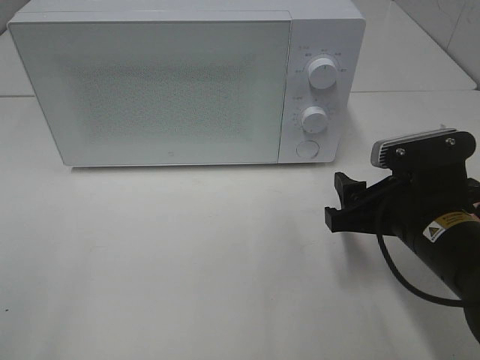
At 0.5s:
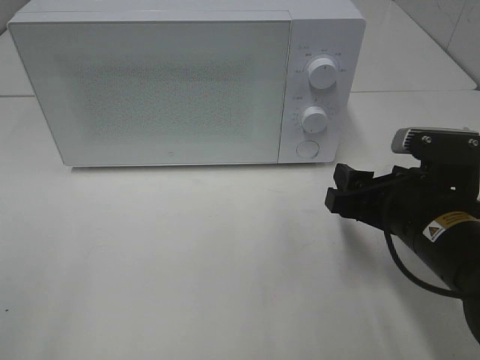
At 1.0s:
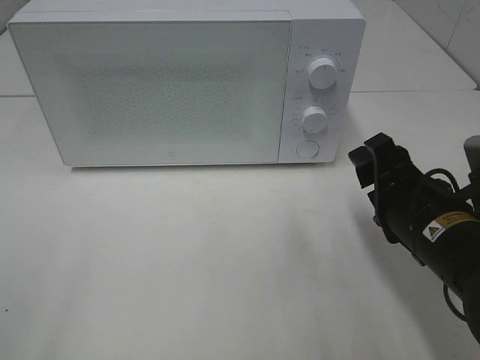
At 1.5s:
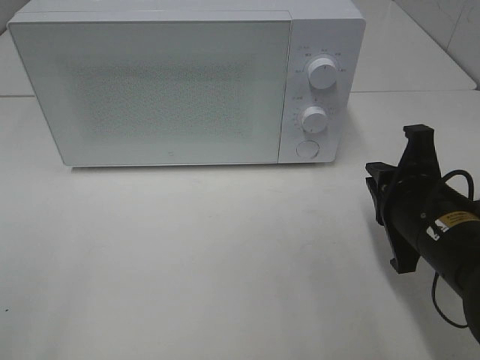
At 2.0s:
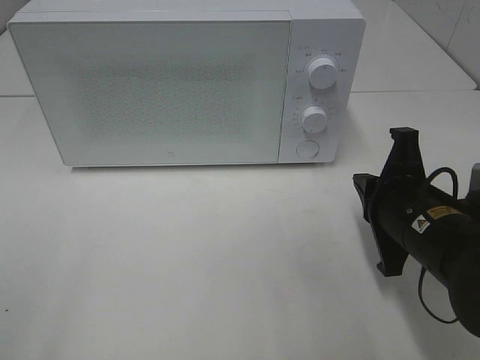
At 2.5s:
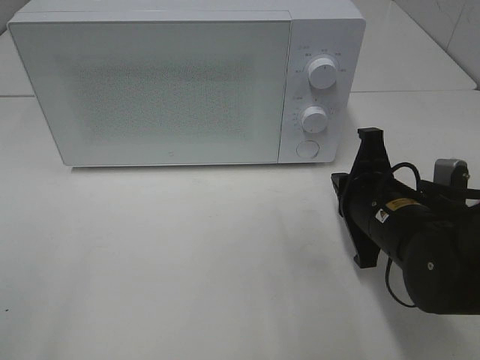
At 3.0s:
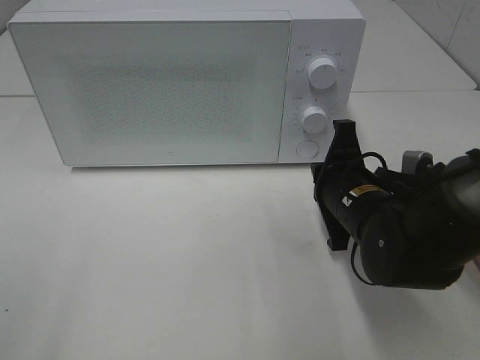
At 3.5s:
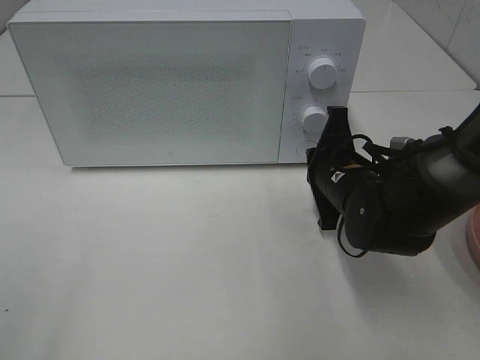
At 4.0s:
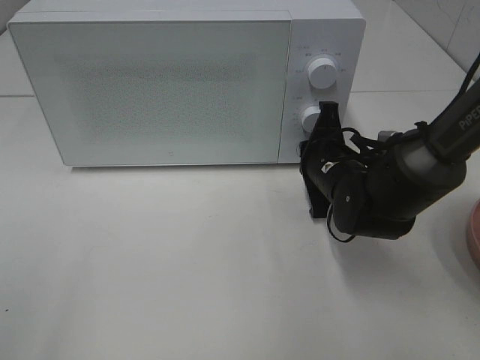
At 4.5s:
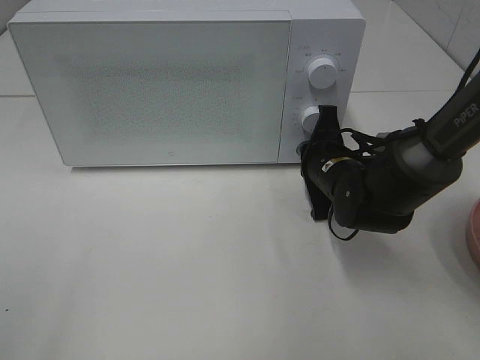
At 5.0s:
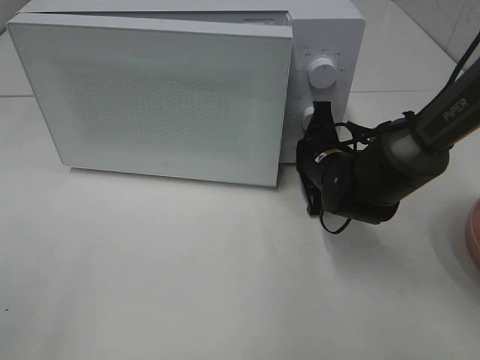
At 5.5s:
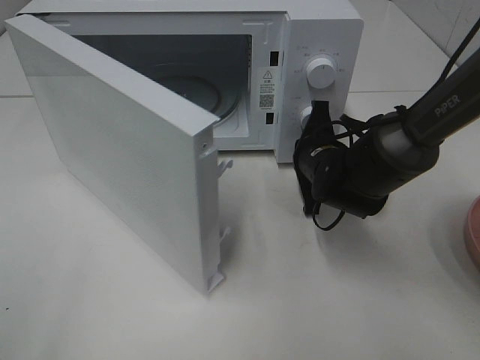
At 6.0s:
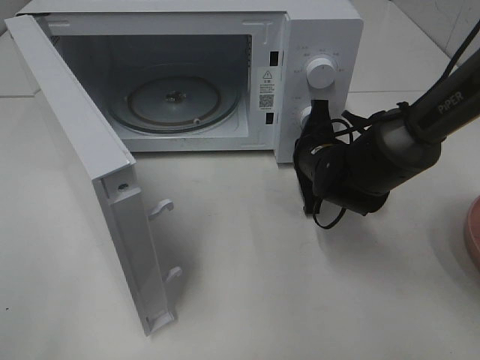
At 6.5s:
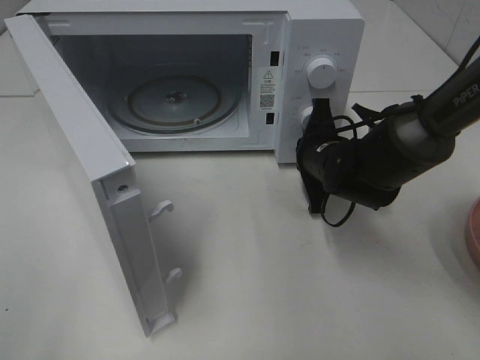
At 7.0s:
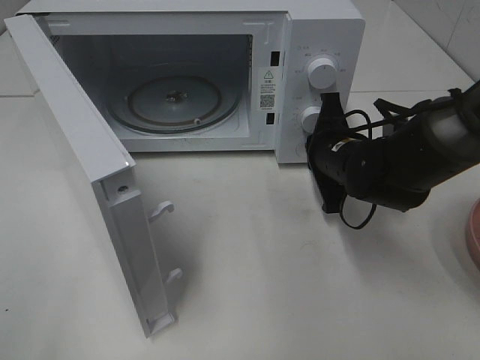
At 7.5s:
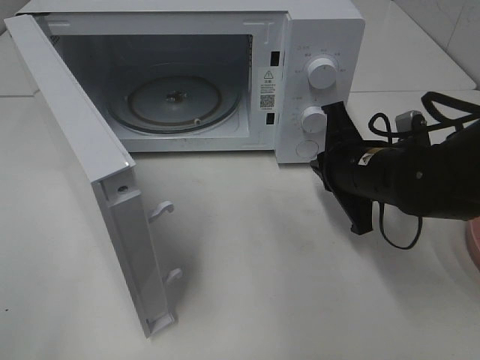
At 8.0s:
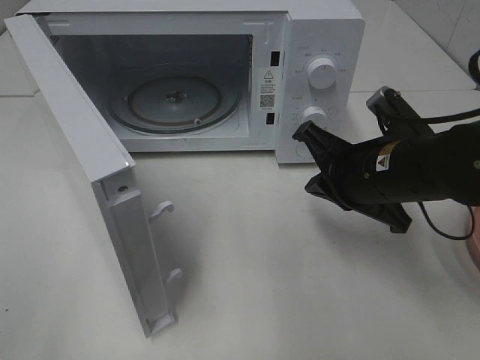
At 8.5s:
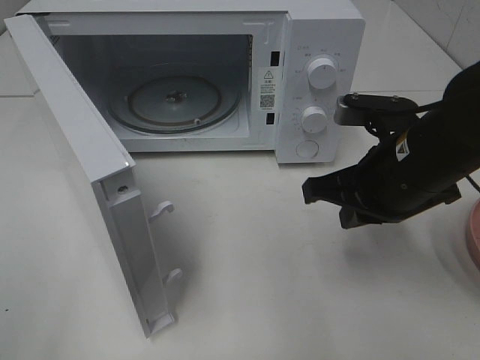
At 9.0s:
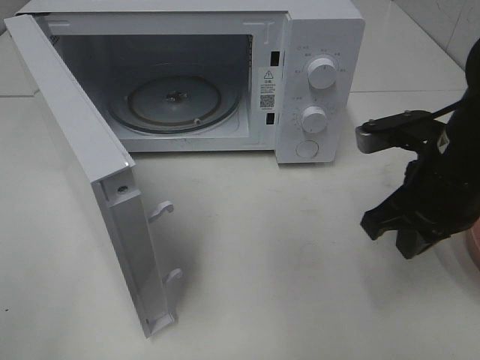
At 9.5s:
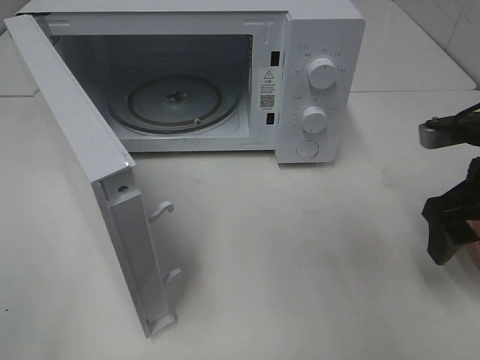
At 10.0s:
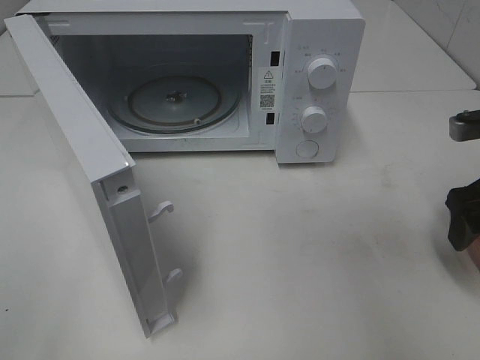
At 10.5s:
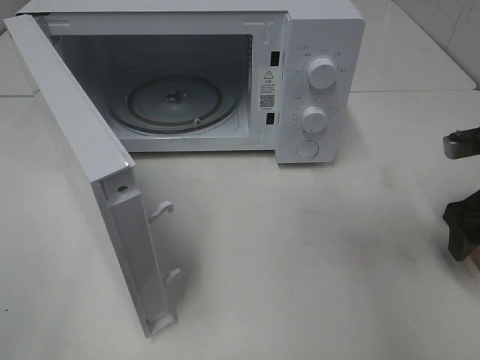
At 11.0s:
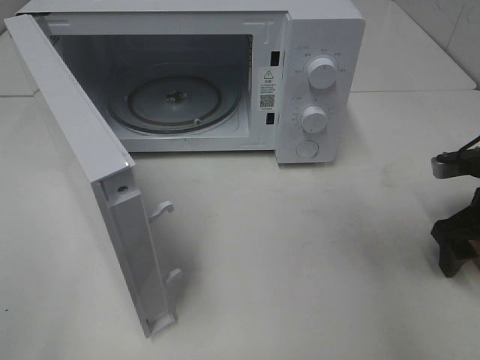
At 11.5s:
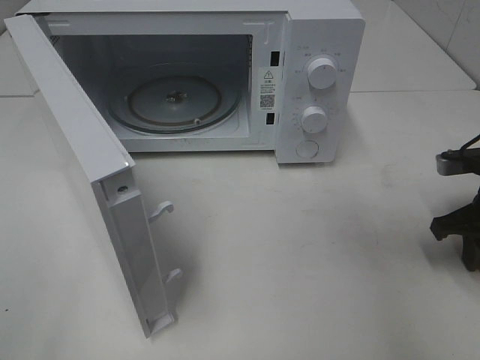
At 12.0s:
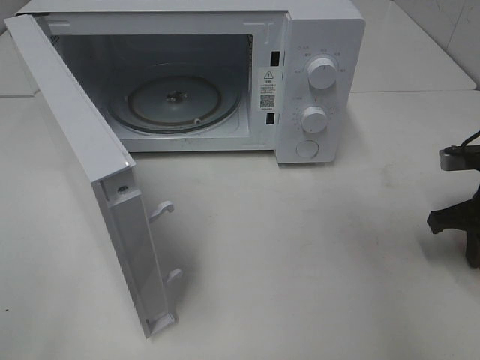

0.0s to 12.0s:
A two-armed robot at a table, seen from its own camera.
Task of the whole recording: Heat the burger.
Step, 0.0s to 7.0s: Right hand: press the switch.
0.0s to 2.0s: The right gripper closes up.
2.0s to 4.0s: The right gripper travels forward by about 10 cm.
6.0s to 8.0s: The right gripper travels backward and upward by about 15 cm.
8.0s to 10.0s: The right gripper travels to the right by approximately 15 cm, and opens up.
10.0s to 12.0s: The right gripper is displaced downward by about 5 cm, and closes.

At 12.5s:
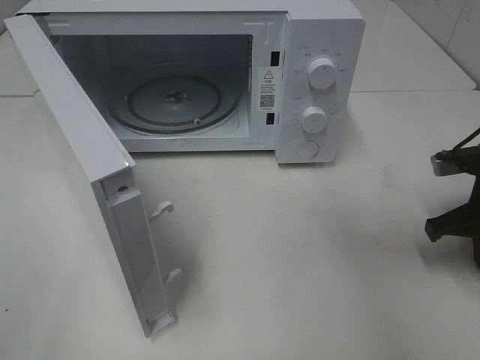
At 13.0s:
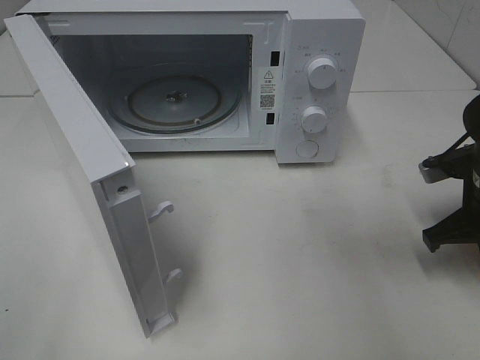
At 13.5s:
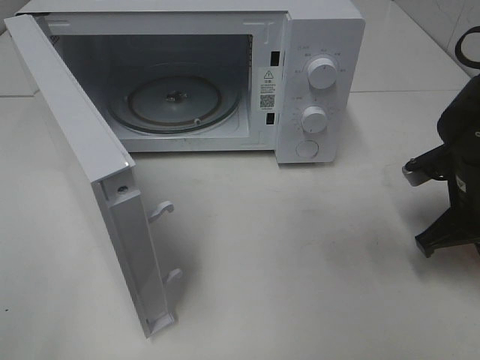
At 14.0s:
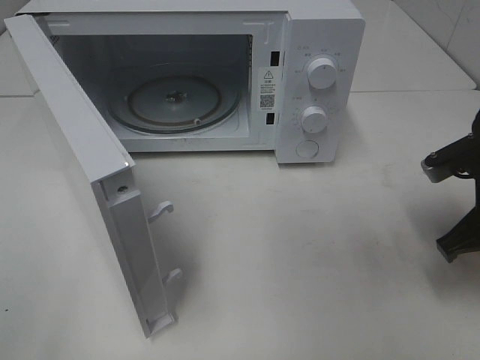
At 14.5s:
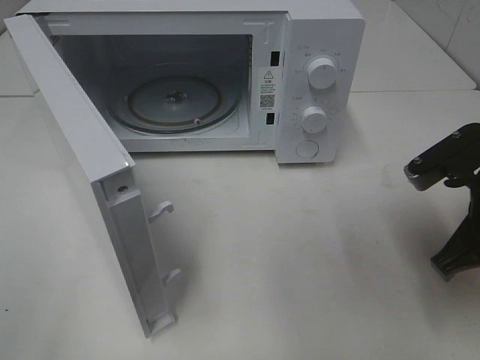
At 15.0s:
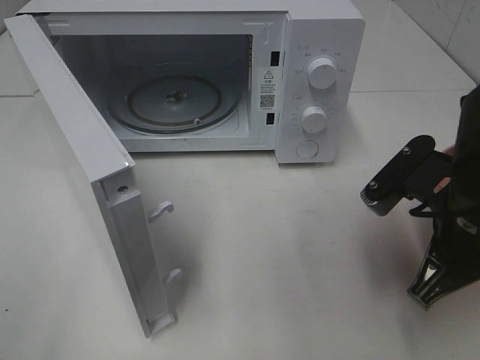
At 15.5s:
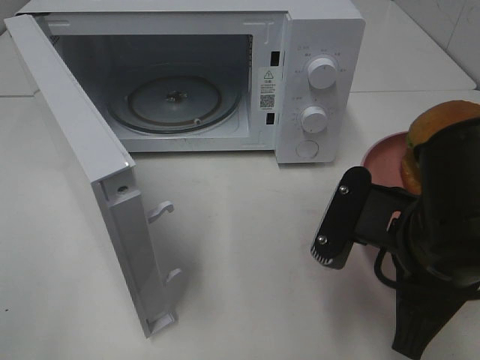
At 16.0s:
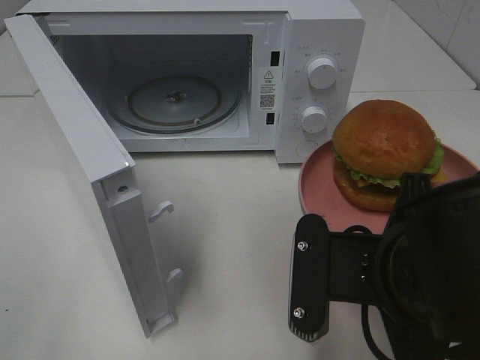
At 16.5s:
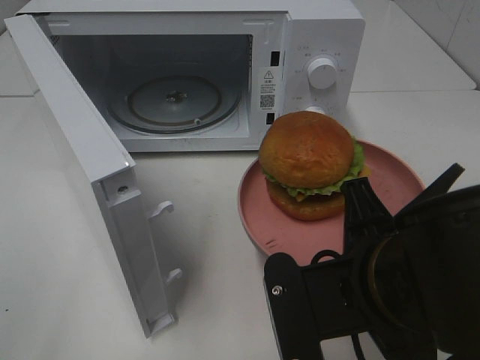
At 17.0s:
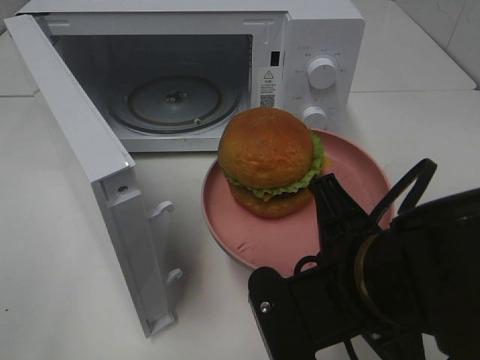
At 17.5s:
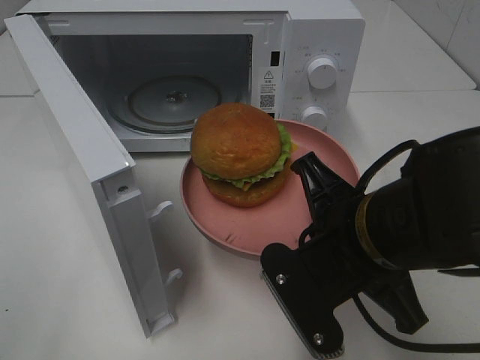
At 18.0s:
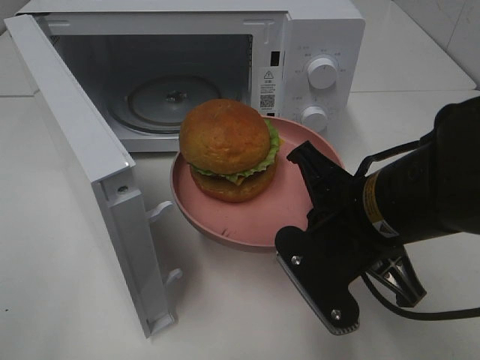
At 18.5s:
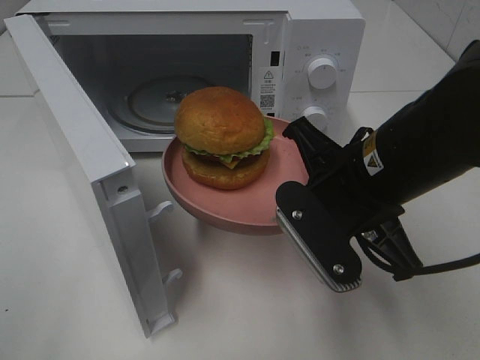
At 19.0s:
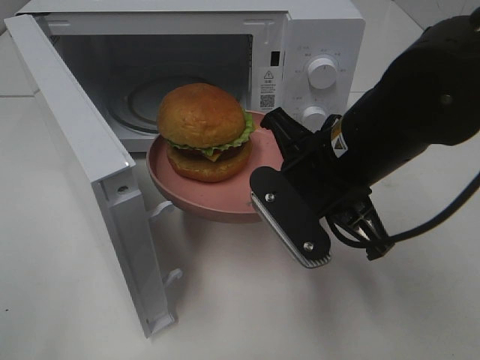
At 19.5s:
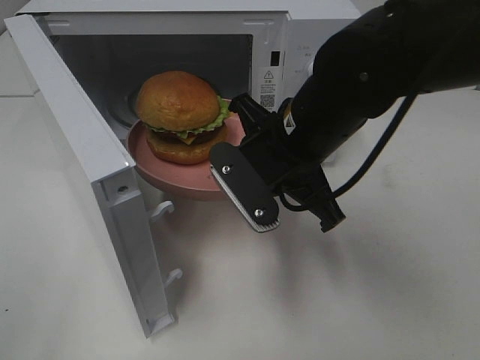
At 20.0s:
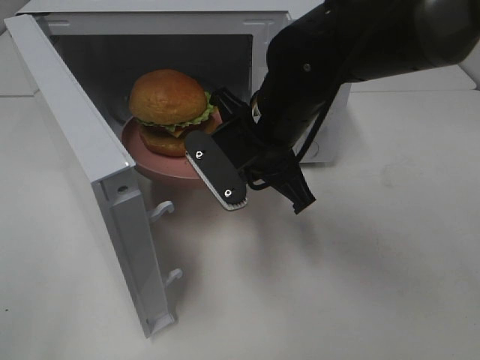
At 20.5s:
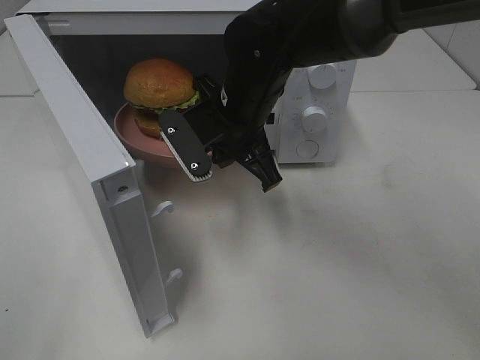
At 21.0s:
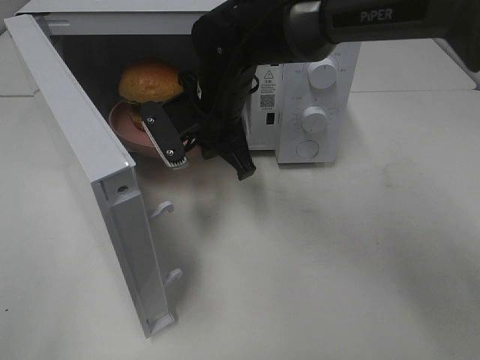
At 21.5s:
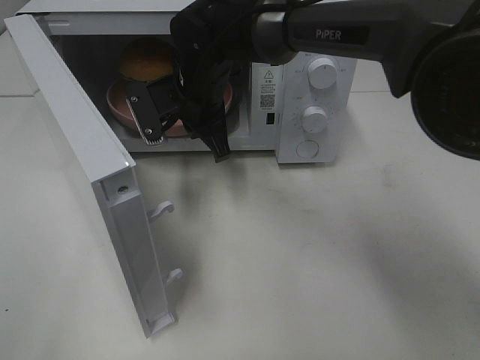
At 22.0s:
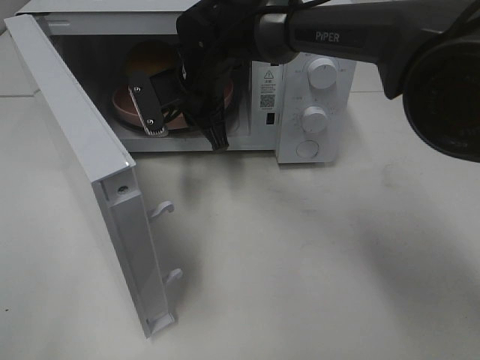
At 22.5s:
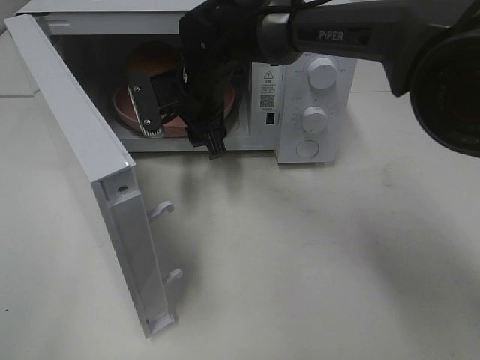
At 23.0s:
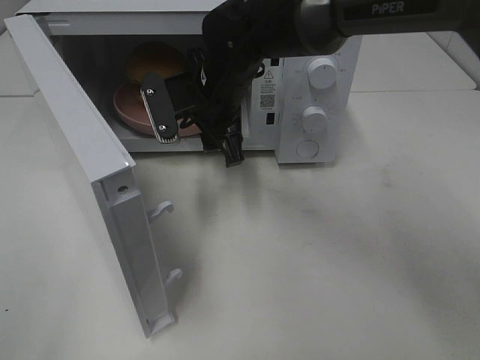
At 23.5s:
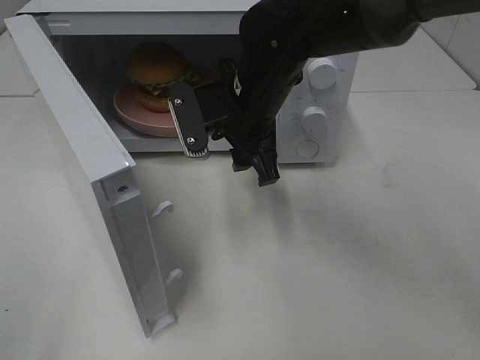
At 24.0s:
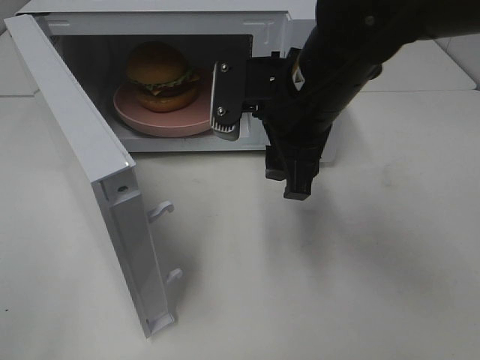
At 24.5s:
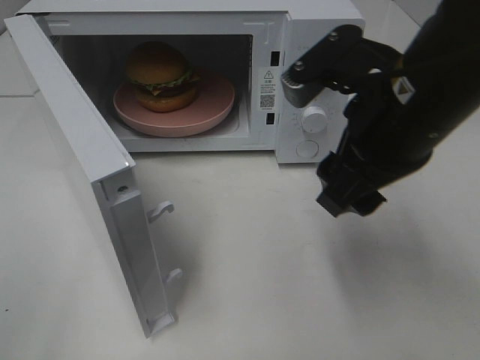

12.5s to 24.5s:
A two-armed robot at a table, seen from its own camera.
Task of the whole recording: Heat the burger.
Step, 13.0s to 22.0s: Right hand: place the plate in the microwave.
12.5s to 14.5s: The right gripper shifts some 10 cm to the left, backward and upward.
14.5s to 16.5s: The right gripper heads to the left and backward, covering approximately 15 cm.
16.5s to 18.5s: The right gripper is displaced forward by about 10 cm.
18.5s to 20.5s: The right gripper shifts approximately 15 cm forward and to the left.
20.5s to 22.5s: The right gripper is displaced forward by approximately 5 cm, and opens up.
22.5s to 24.5s: The right gripper shifts about 25 cm backward, to the right and upward.

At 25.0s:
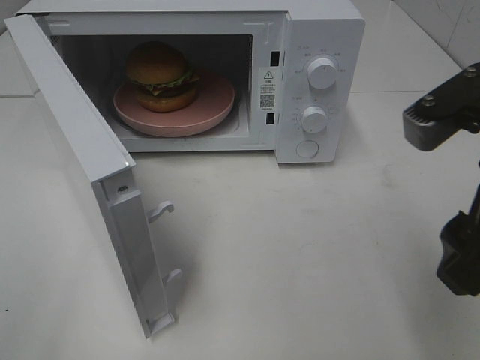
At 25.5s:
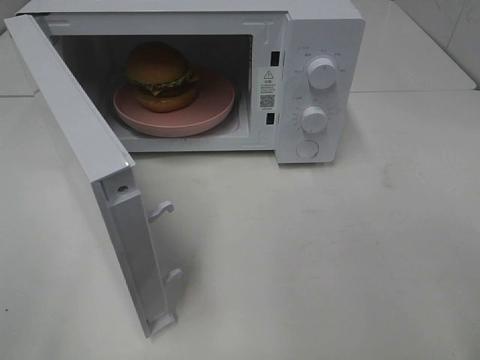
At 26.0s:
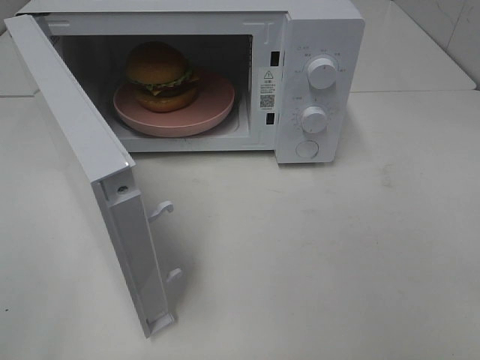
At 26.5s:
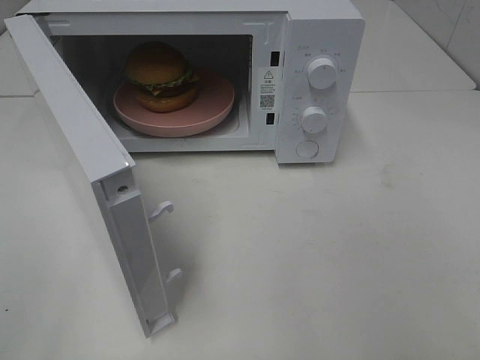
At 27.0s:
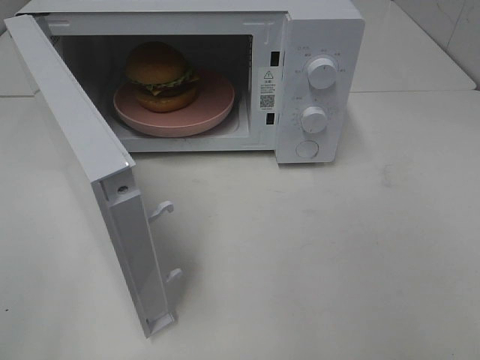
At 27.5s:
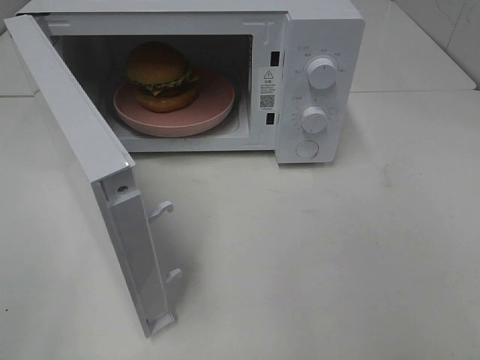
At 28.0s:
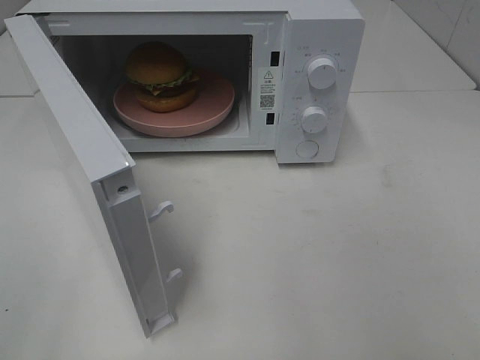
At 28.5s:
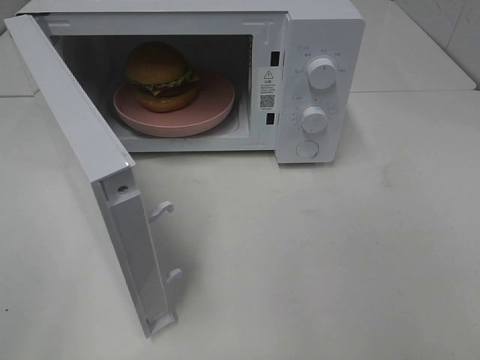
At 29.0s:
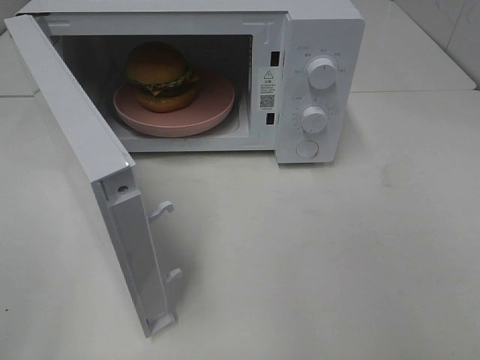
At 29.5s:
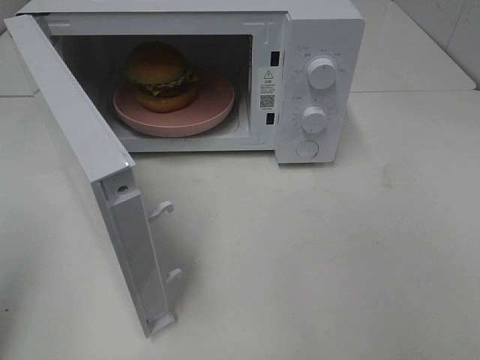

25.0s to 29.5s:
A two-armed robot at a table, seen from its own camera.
Task of the whole recording: Heat the burger.
25.0s to 27.0s: The right gripper heads backward and to the right, covering approximately 20 cm.
